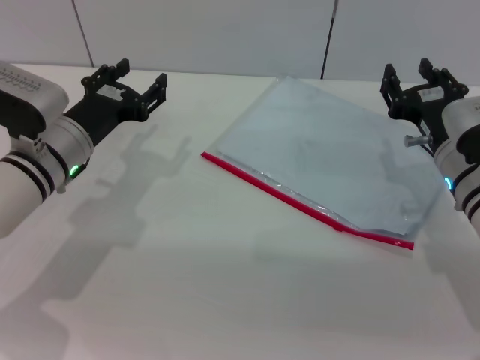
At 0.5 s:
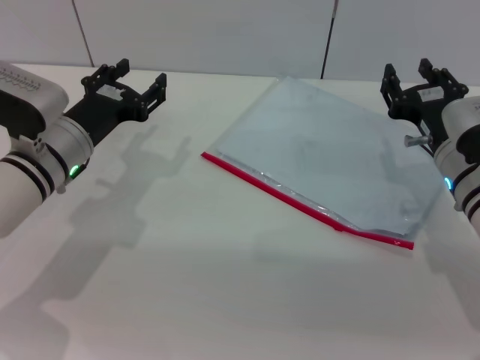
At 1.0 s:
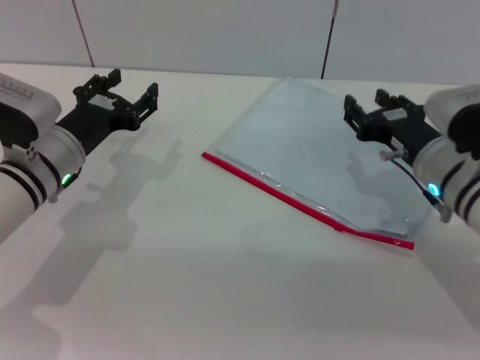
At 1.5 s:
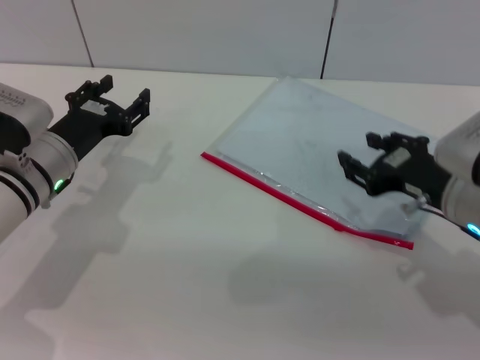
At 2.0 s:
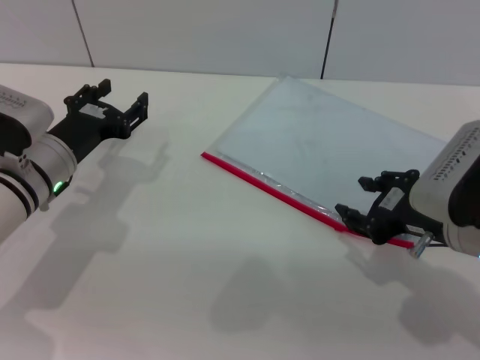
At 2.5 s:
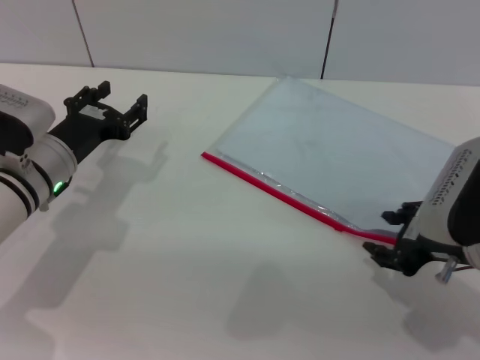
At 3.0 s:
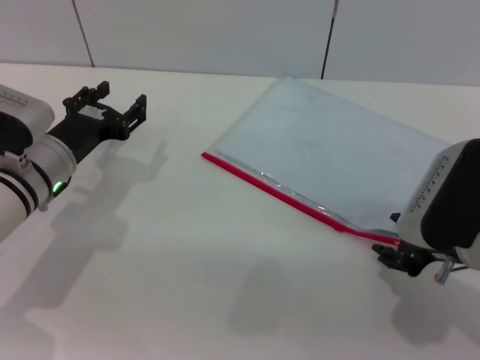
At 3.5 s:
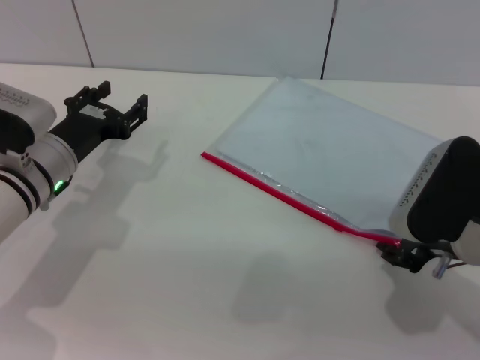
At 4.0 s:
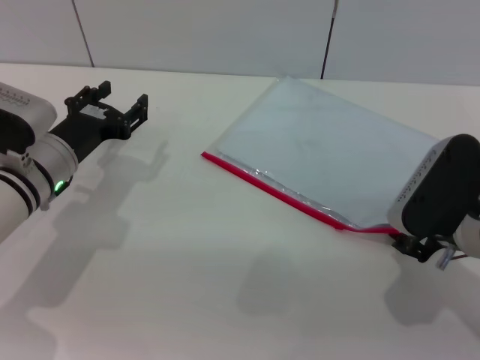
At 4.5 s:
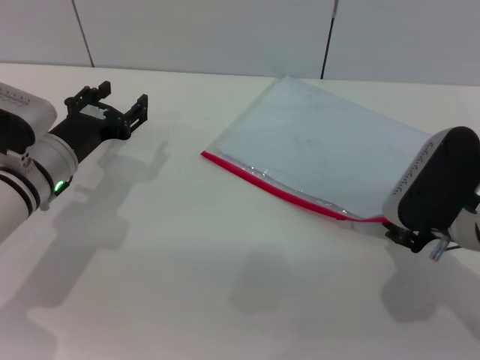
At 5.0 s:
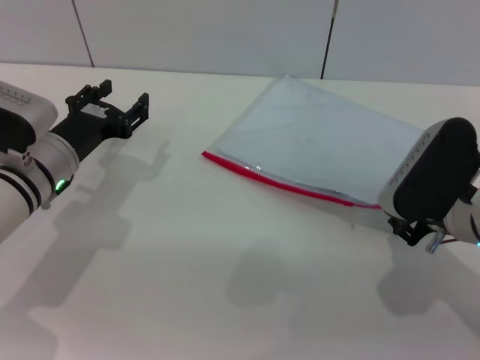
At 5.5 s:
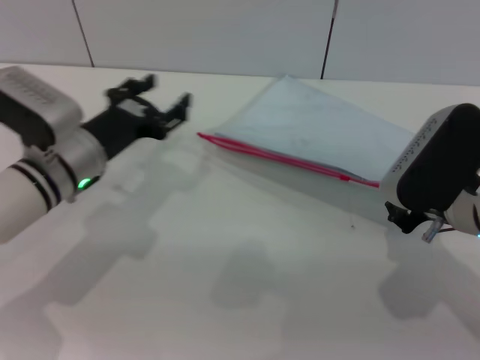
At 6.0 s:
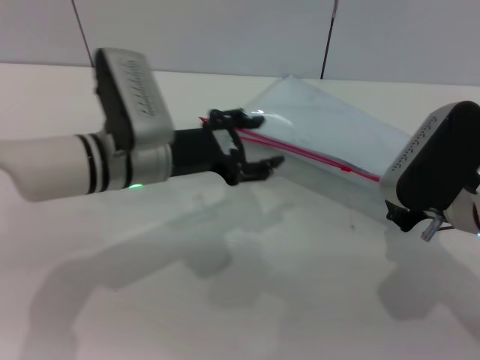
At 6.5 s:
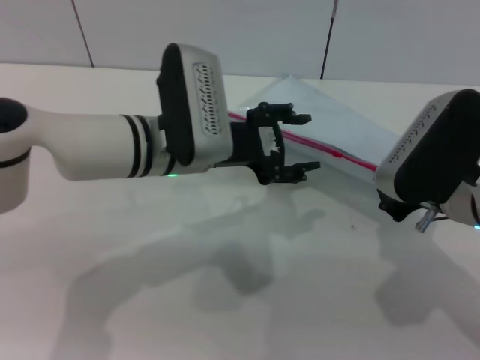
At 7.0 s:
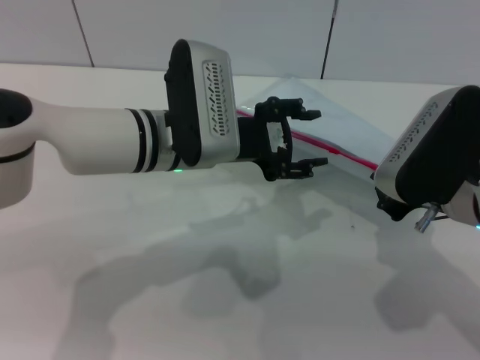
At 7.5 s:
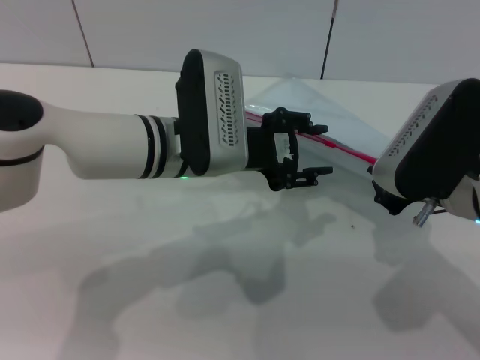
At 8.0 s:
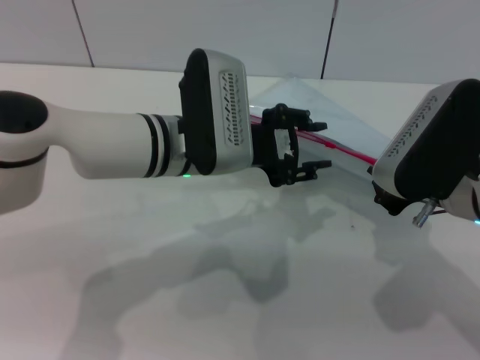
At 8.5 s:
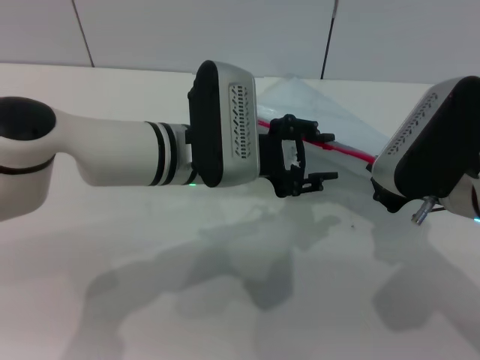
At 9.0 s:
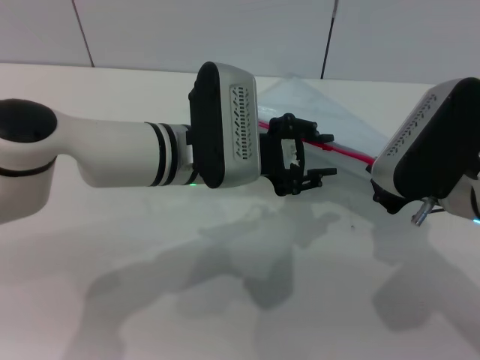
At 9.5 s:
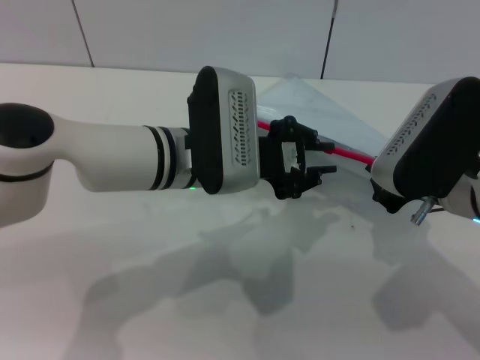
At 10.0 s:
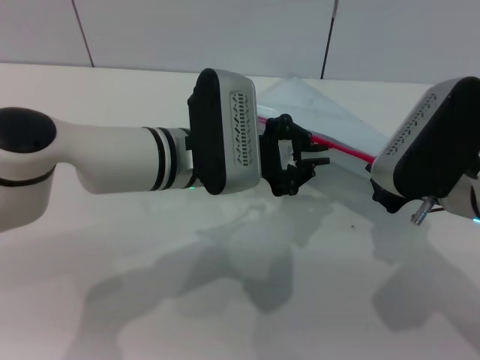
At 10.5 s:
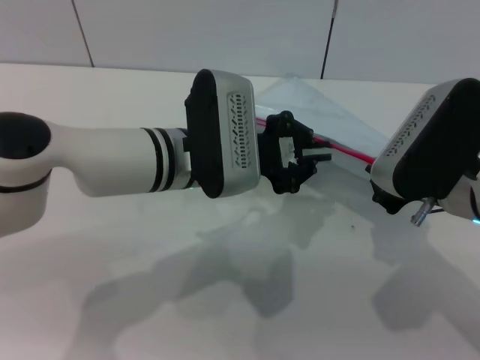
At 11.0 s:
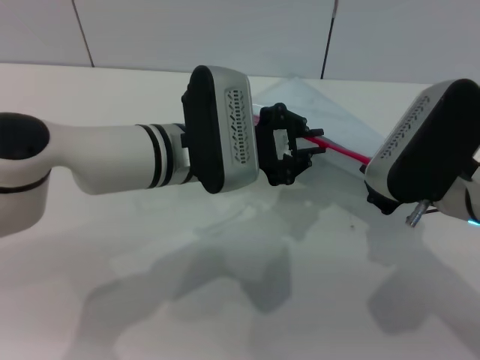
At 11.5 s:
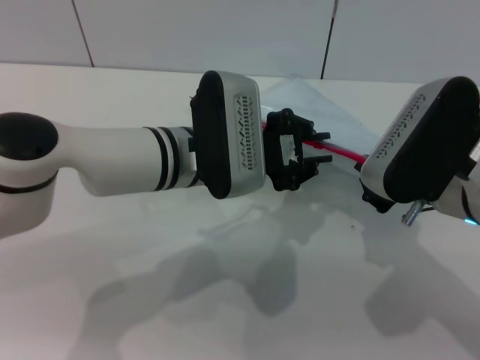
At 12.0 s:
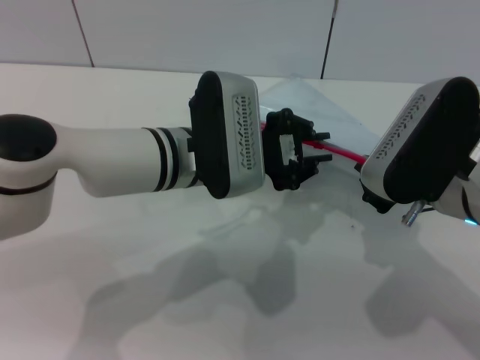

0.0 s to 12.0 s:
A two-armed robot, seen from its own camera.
Step, 0.0 to 6.0 s: Pick up the transparent plastic bag with the right gripper.
0.0 to 2.0 s: The right gripper travels backward and upward by about 10 cm.
4.0 to 6.0 s: The right gripper closes; the left gripper is displaced to the right by some 10 cm.
6.0 to 8.0 s: The left gripper travels to the right by some 5 cm.
8.0 to 10.0 s: The left gripper closes up.
10.0 to 12.0 s: Both grippers stay put.

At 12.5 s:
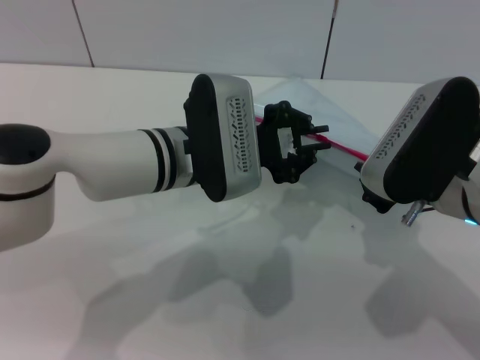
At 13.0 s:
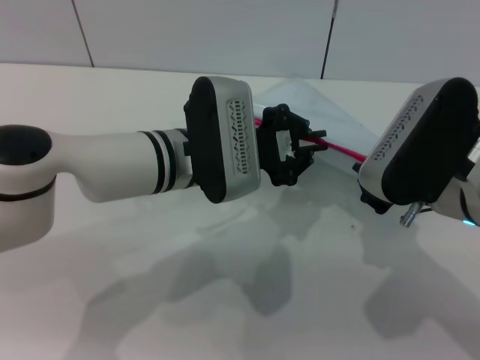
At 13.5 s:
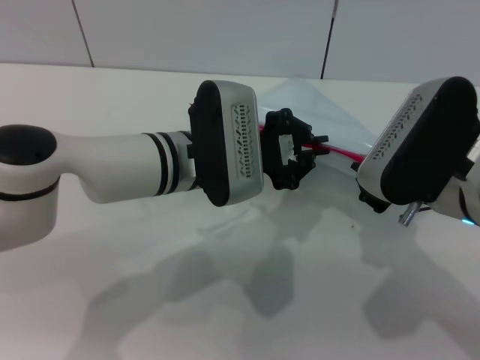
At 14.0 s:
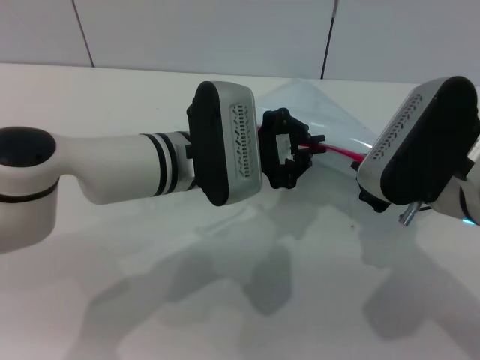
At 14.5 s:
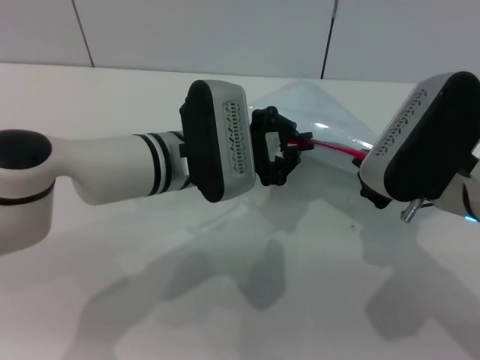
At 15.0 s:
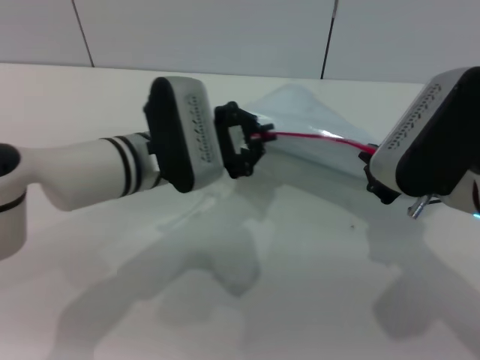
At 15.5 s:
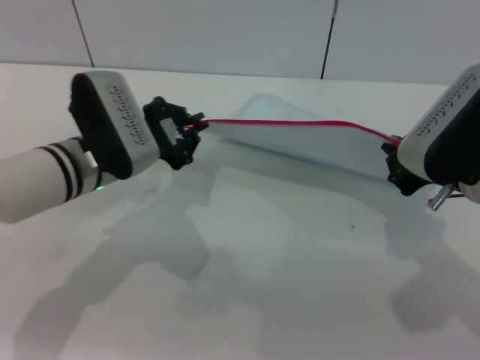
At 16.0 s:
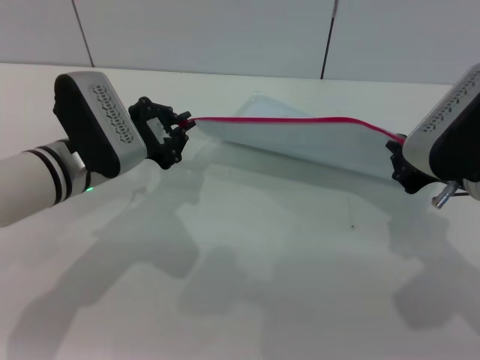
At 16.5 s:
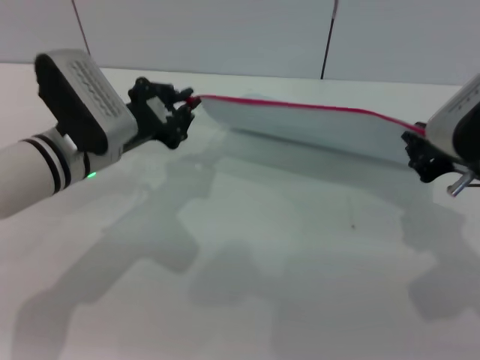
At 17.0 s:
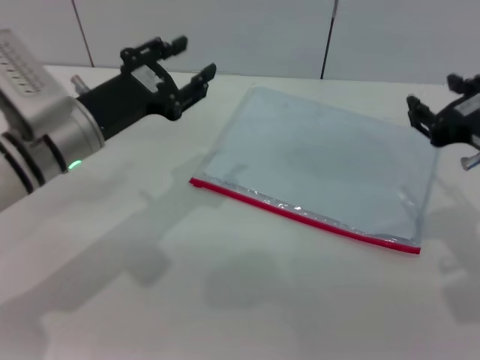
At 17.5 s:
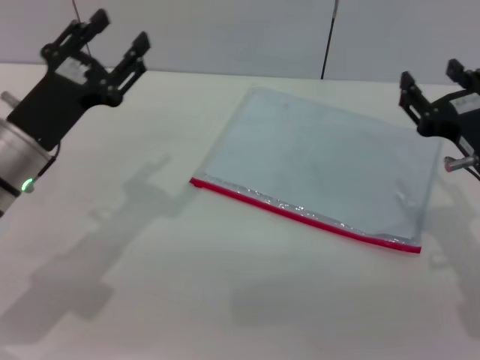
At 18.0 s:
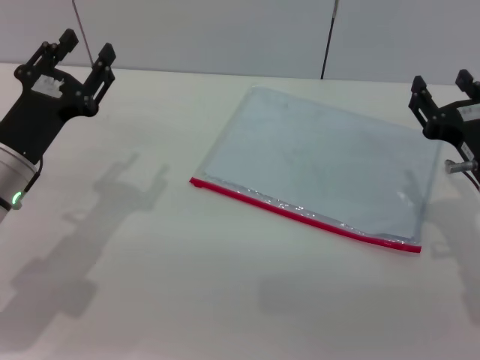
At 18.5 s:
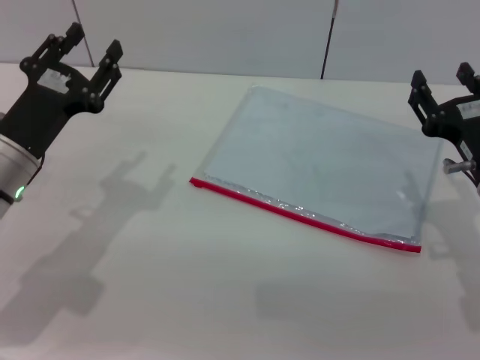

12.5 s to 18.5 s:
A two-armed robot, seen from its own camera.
Step, 12.5 to 16.5 s: Pulling up the zipper on the transparent plastic bag with the left gripper to close it.
12.5 to 14.5 s: The two grippers keep their place.
14.5 to 16.5 s: The left gripper is displaced to the left by about 10 cm.
16.5 to 18.5 s: The right gripper shifts approximately 10 cm downward, and opens up. Meanwhile the left gripper is displaced to the left by approximately 5 cm, and opens up.
